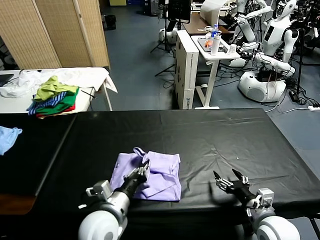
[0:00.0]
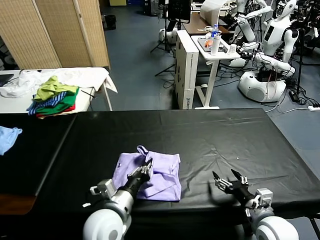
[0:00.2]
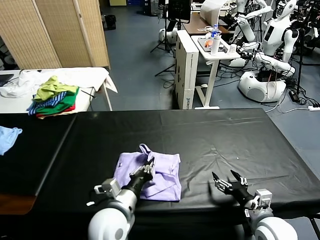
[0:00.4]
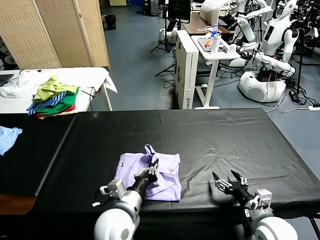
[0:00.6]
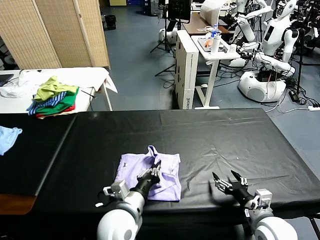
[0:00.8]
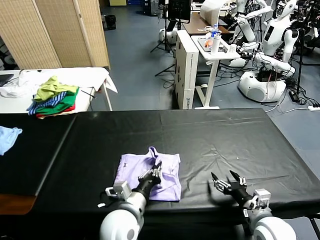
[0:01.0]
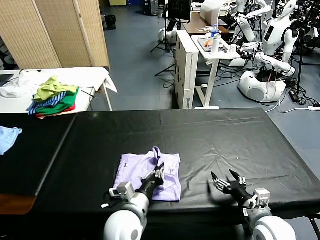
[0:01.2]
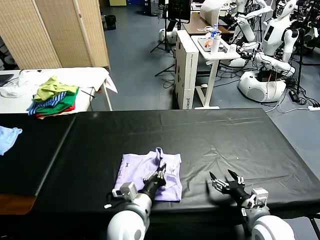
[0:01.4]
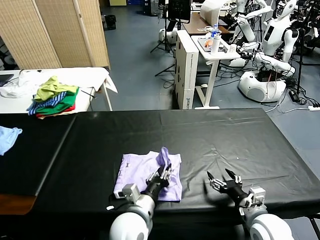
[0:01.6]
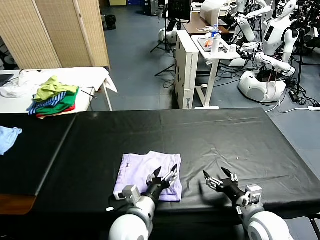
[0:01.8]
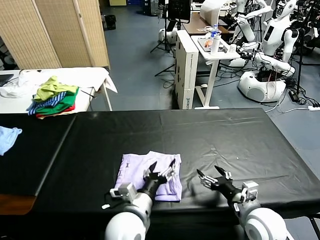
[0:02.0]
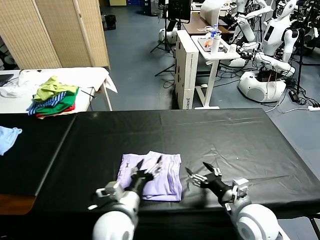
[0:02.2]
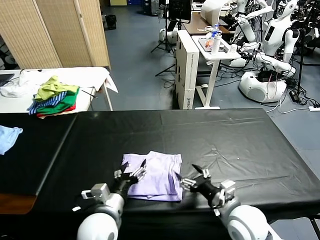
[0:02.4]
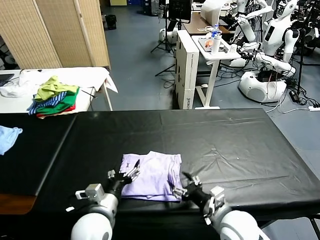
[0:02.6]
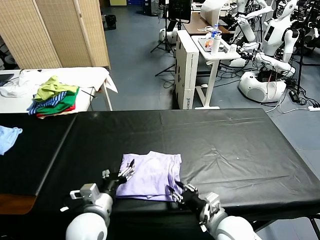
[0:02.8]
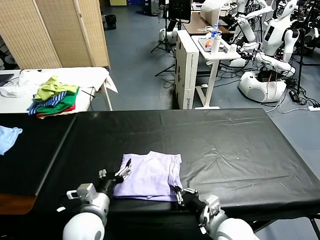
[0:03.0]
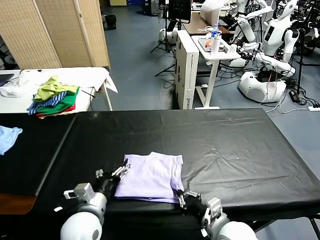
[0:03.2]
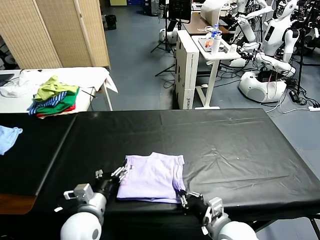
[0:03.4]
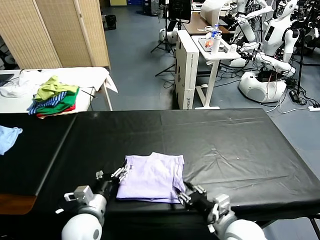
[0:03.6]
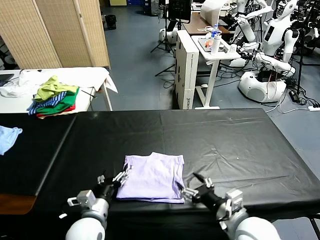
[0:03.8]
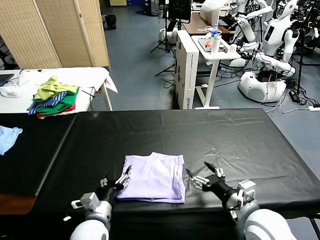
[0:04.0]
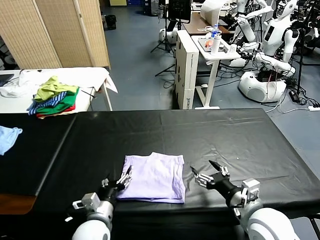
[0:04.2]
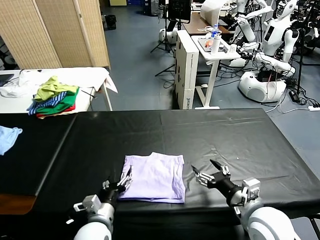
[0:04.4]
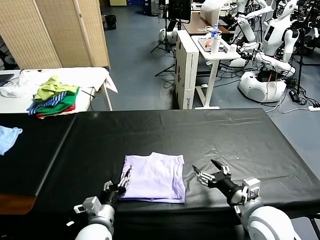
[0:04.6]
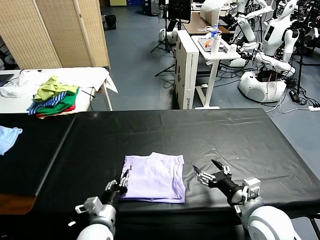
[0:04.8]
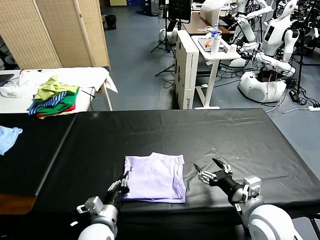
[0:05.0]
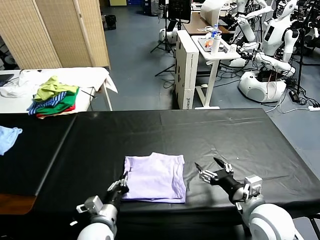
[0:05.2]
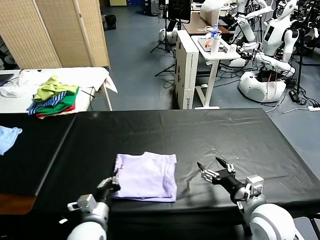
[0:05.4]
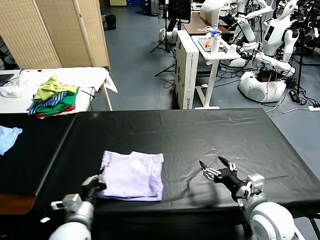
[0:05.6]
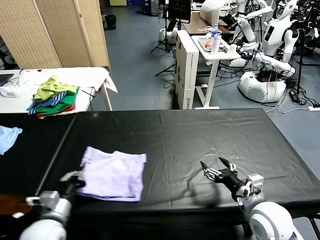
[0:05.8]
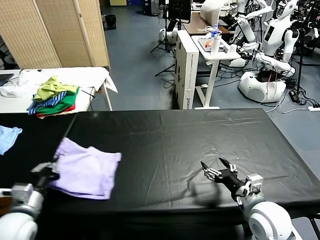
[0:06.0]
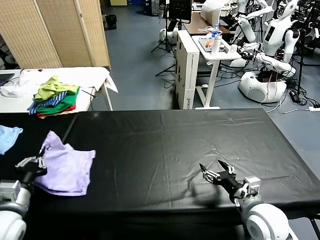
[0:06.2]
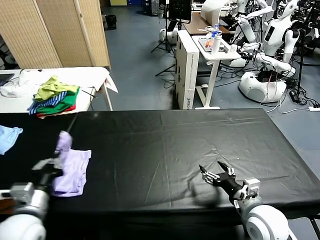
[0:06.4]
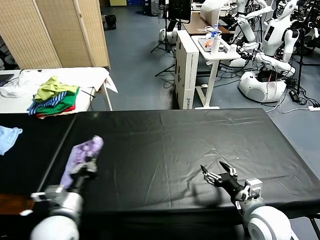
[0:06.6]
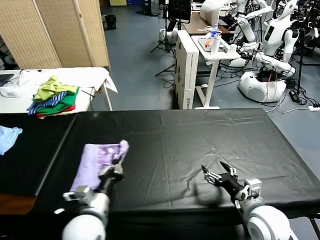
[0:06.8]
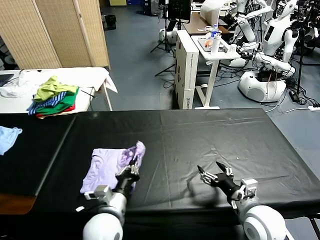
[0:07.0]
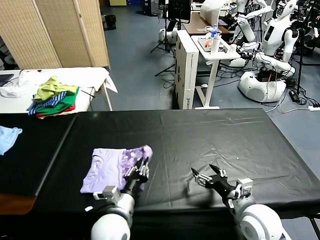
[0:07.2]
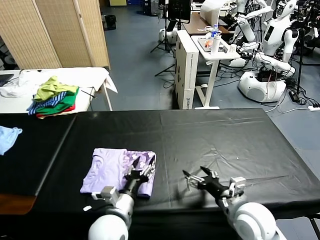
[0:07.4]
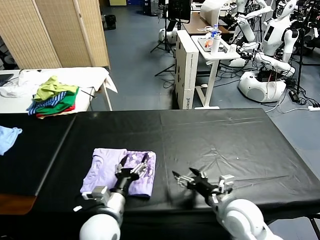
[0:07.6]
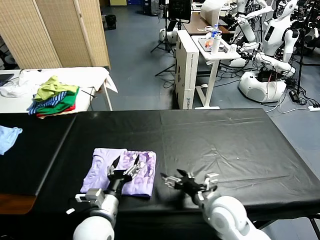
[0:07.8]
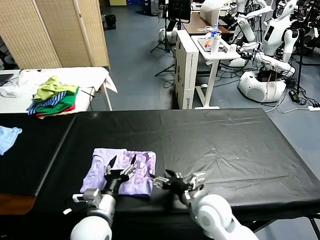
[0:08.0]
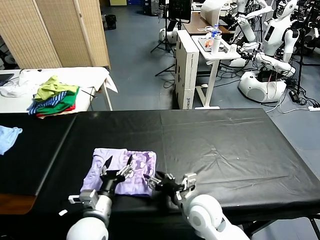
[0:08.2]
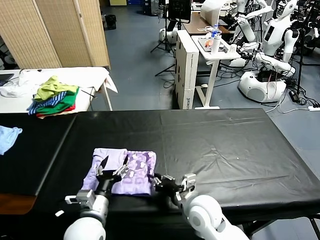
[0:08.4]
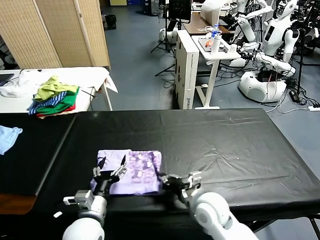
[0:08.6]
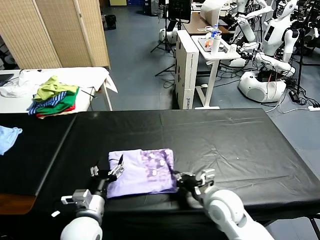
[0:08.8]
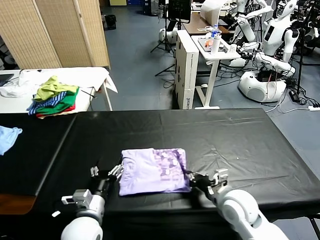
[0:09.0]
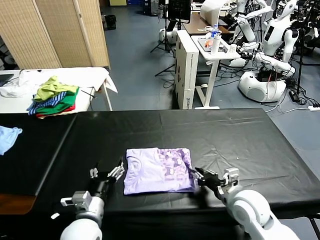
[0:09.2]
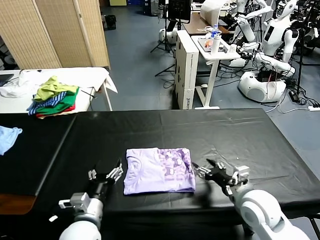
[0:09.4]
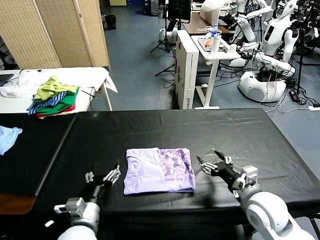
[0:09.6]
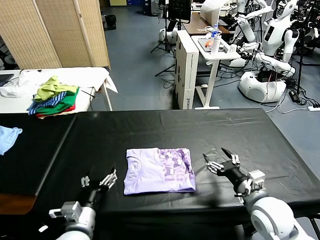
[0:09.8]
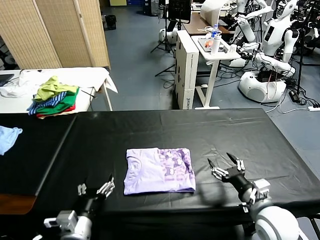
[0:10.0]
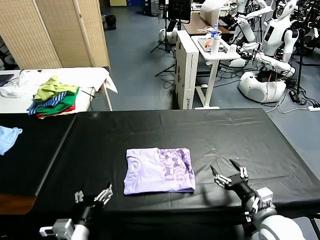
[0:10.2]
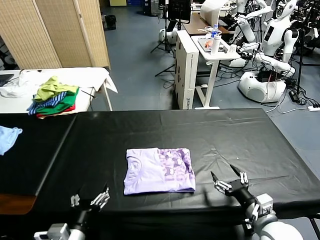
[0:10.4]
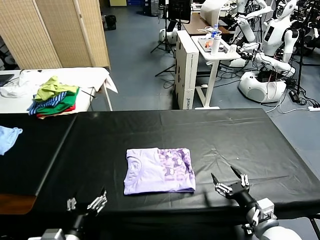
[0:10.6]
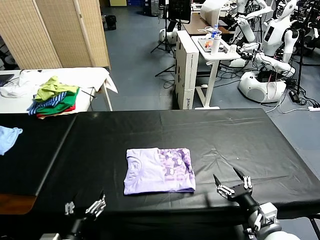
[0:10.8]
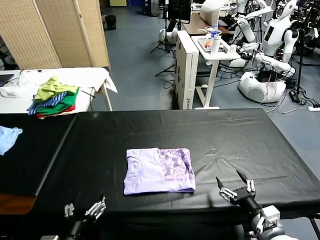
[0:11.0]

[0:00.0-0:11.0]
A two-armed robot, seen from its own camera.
Task of the whole recording: fold and organize the clothes.
Step, 0:02.0 to 0:07.4: Flip the folded clothes over with left gripper.
Step, 0:07.6 to 0:09.2: Drag the clothes to the center of the table.
0:00.0 to 0:01.6: The left gripper goes some 10 cm to the right.
0:01.6 to 0:03.2: The grippers both shift to the left by about 10 cm. The left gripper opens up, while the right gripper closes its fingers.
0:03.2 to 0:04.8: The left gripper travels downward by roughly 5 cm; the right gripper heads to the right and upward, covering roughly 10 cm, and opens.
0:04.8 to 0:06.2: The left gripper heads to the left and upward, covering about 20 cm, and closes up.
0:06.2 to 0:07.8: The left gripper is displaced to the right by roughly 20 cm, and opens; the right gripper moves to the left, roughly 10 cm.
0:07.8 to 0:09.4: The right gripper goes approximately 5 cm to the right, and closes its fingers.
0:09.4 to 0:11.0: The grippers both shift backward by approximately 10 cm. The right gripper opens.
